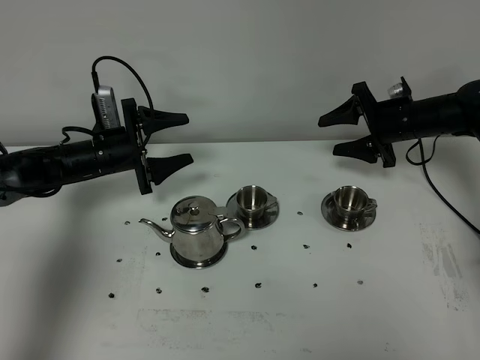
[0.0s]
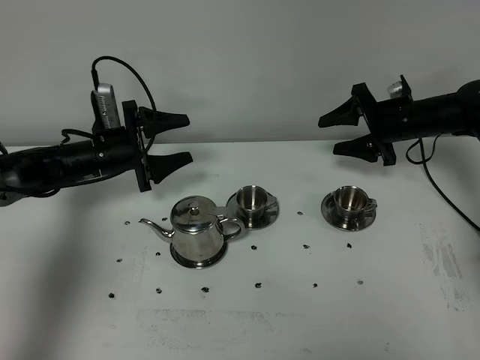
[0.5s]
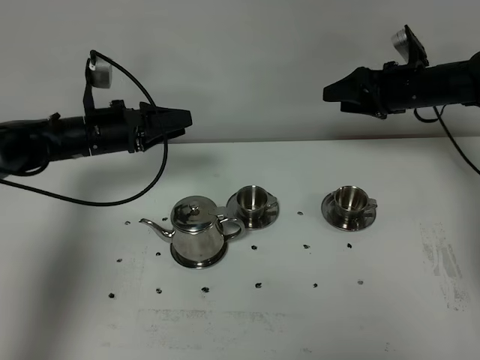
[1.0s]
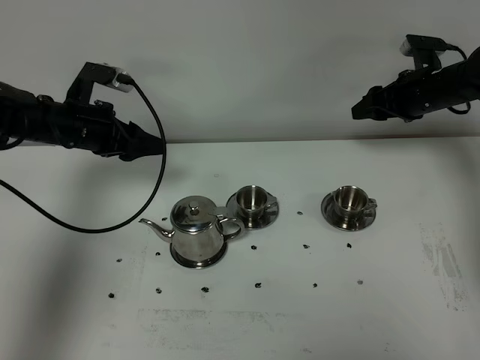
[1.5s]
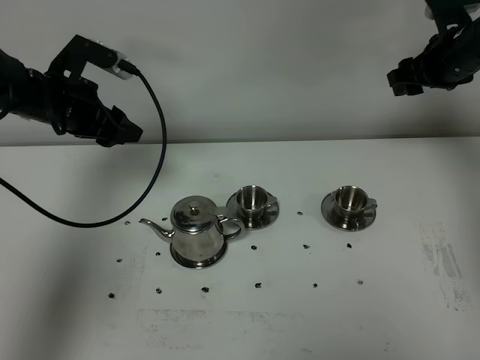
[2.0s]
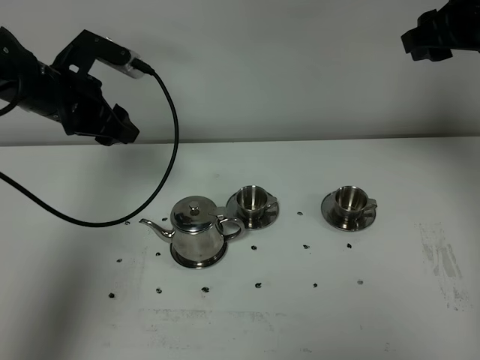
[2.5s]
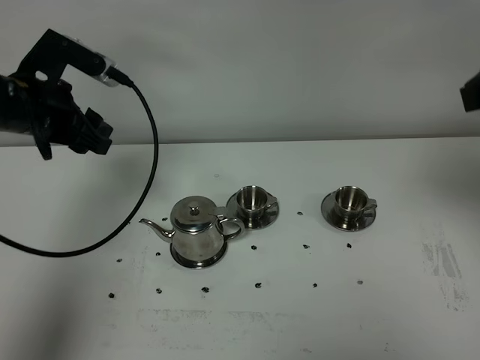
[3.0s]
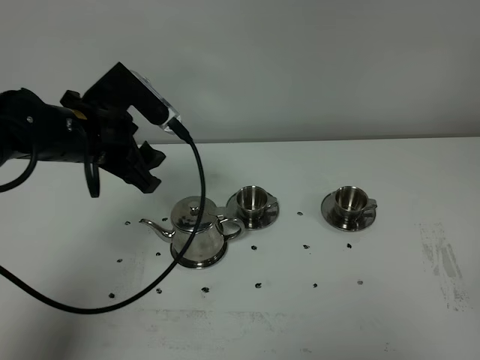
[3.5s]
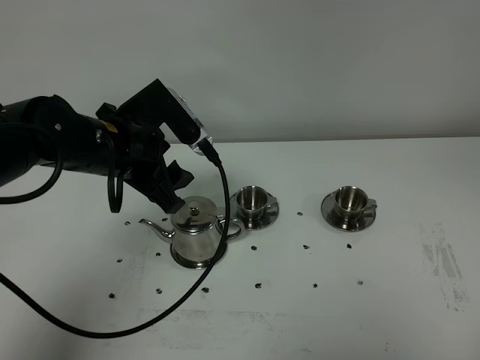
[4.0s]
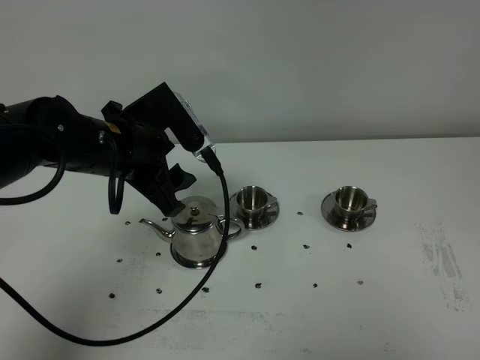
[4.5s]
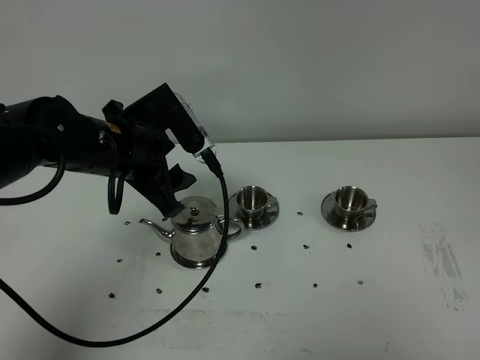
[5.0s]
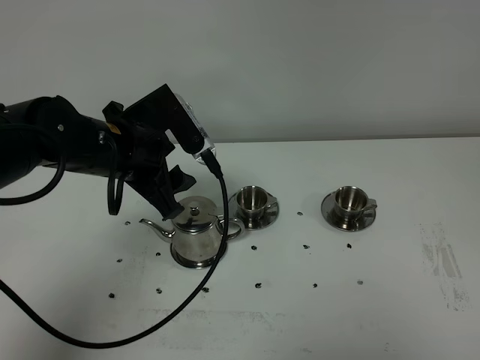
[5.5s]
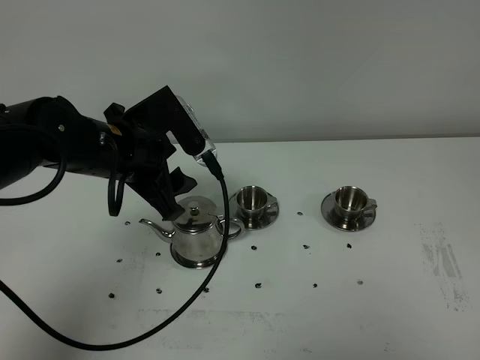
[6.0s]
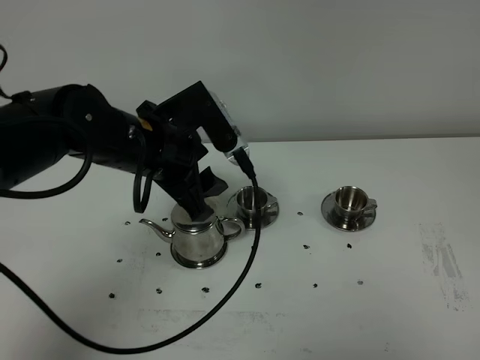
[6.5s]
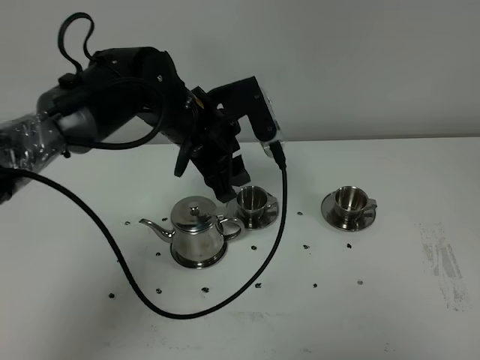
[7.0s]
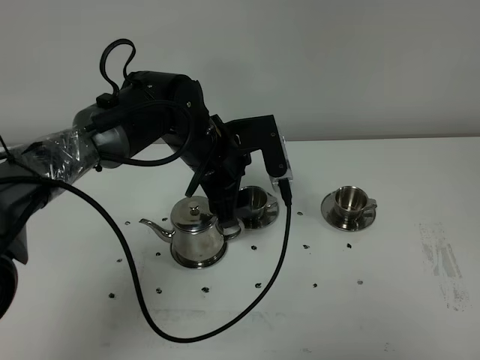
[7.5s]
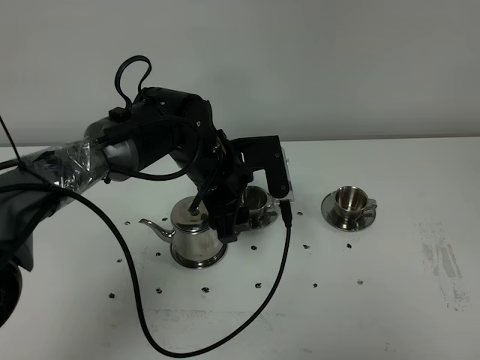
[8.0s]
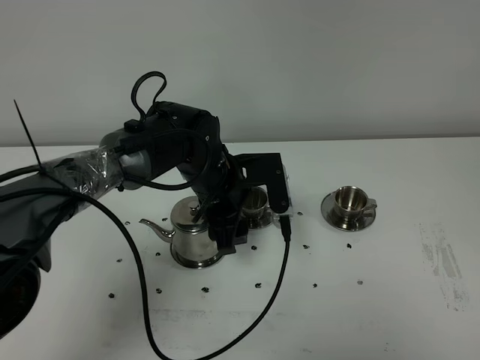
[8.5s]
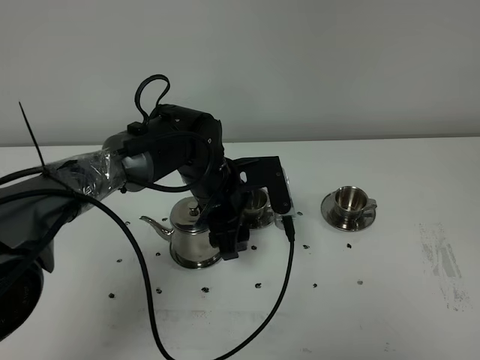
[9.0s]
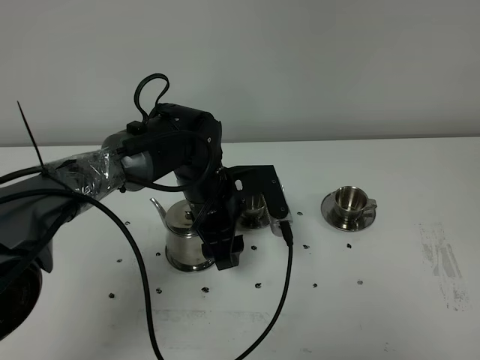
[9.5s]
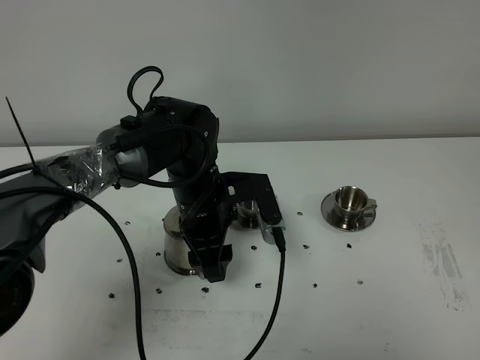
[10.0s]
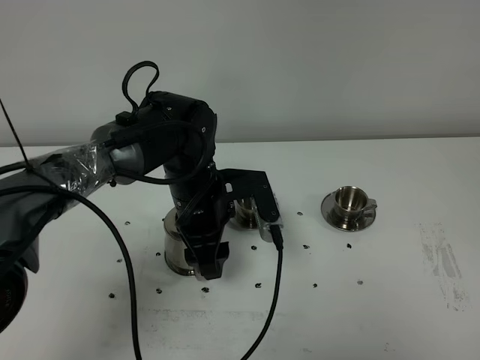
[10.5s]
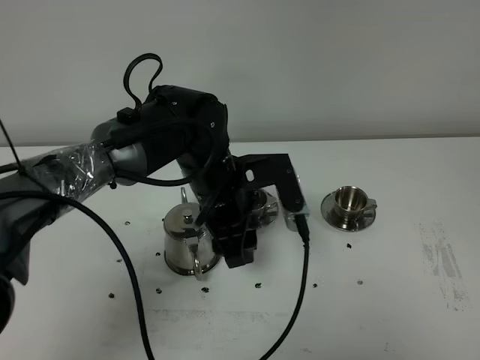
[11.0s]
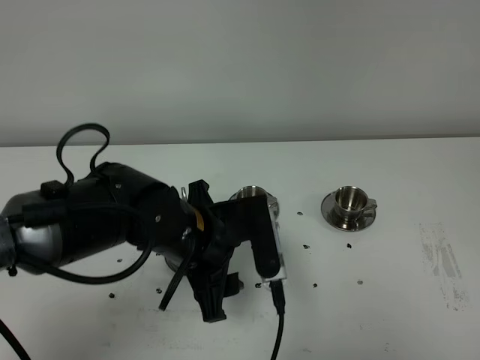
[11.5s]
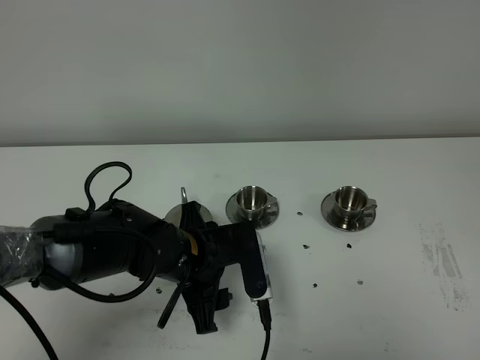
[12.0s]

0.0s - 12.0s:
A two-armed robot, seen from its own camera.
Task of the whole recording: grasp the stainless steel teapot and pour the tea into the two stainless steel teacups one by one, put the stainless steel teapot back in its original place.
0.0s - 2.0s: The two grippers go about 15 cm upward.
2.0s - 4.0s: The right gripper shifts some 50 cm backward, and closes its fingers; the left gripper goes about 15 cm backward and to the right.
4.0s - 6.0s: The right gripper travels downward by about 5 cm.
6.0s - 8.0s: The left gripper goes roughly 10 cm to the right and downward.
10.0s - 12.0s: The left gripper goes some 10 cm backward.

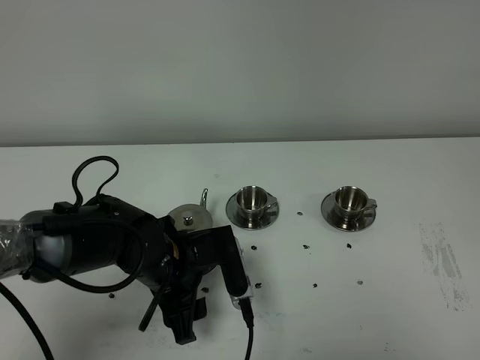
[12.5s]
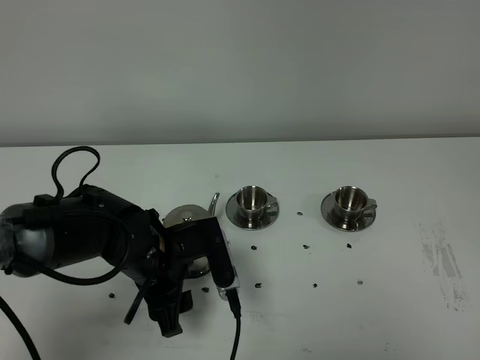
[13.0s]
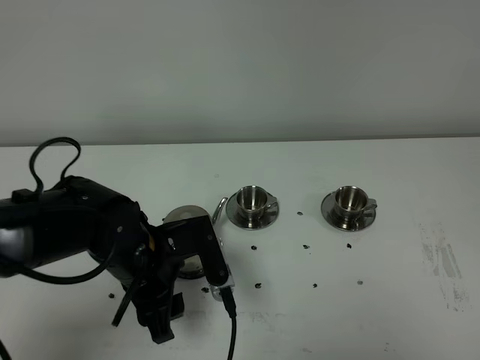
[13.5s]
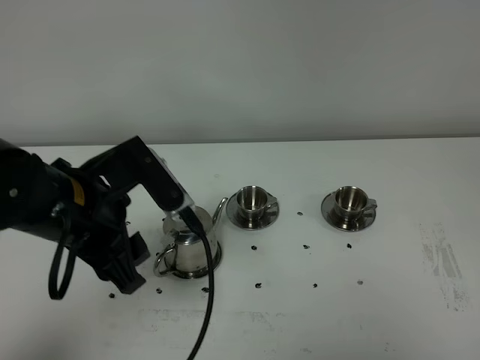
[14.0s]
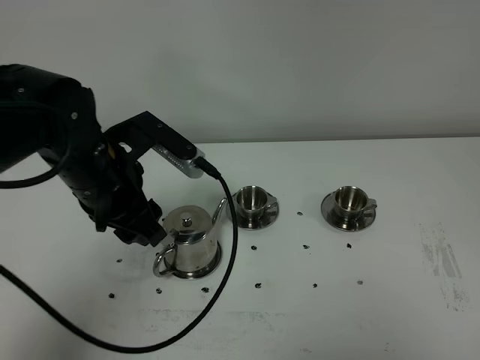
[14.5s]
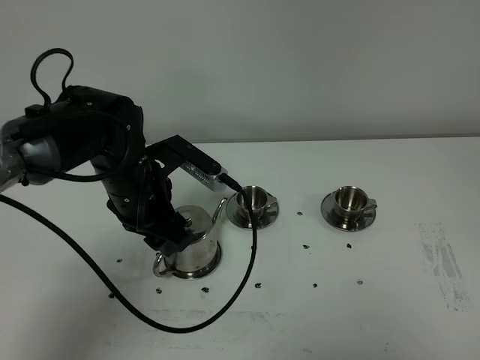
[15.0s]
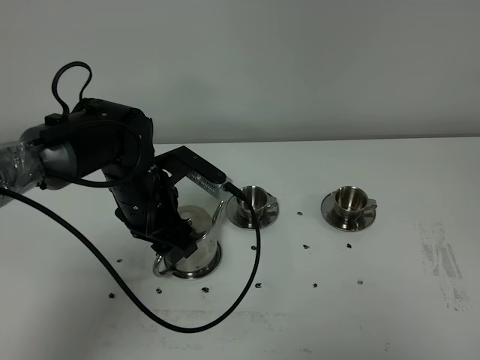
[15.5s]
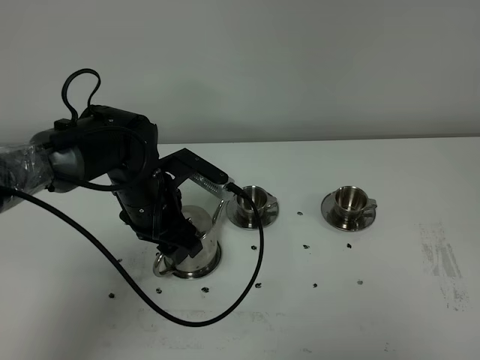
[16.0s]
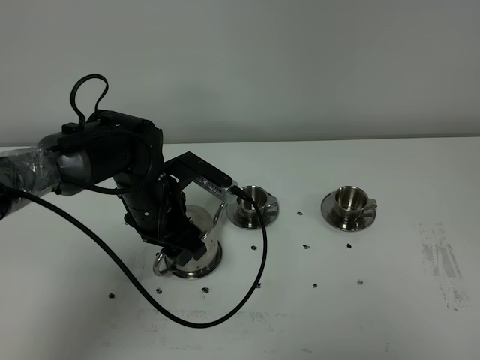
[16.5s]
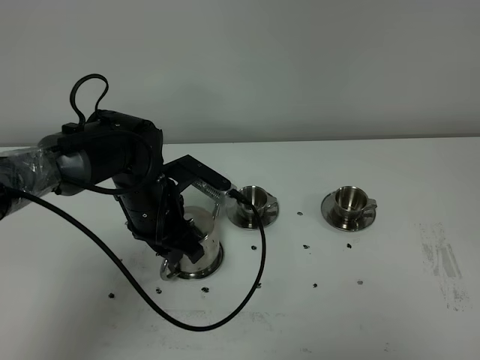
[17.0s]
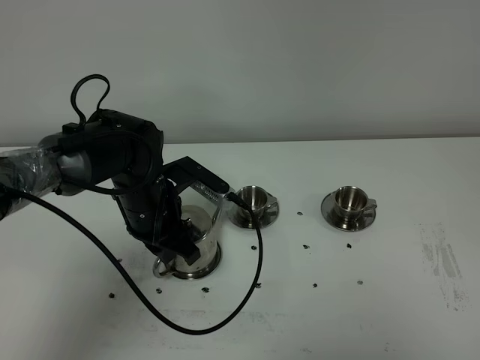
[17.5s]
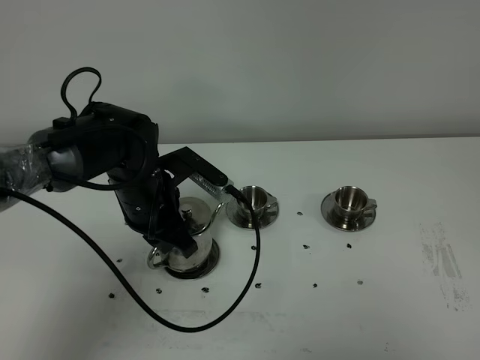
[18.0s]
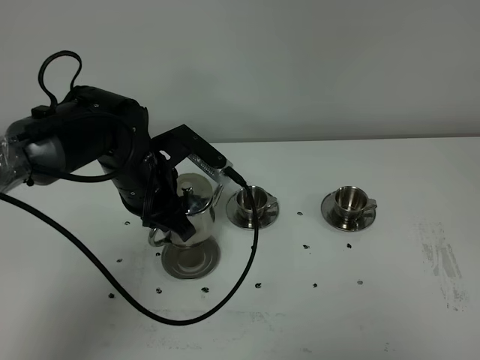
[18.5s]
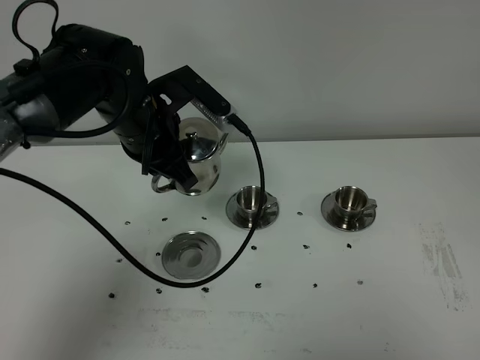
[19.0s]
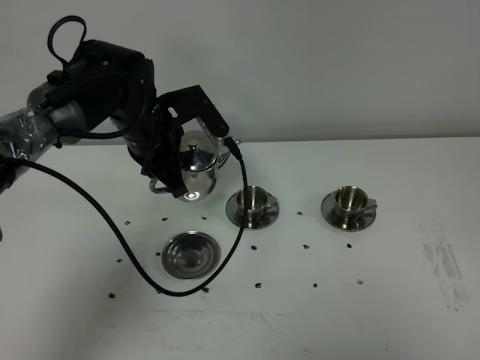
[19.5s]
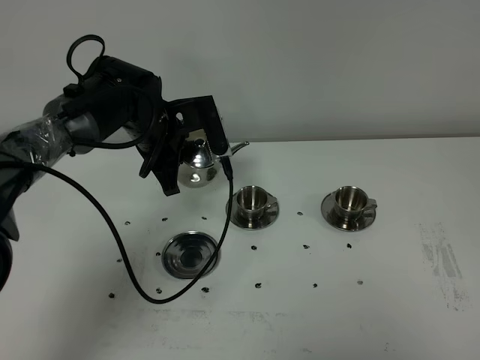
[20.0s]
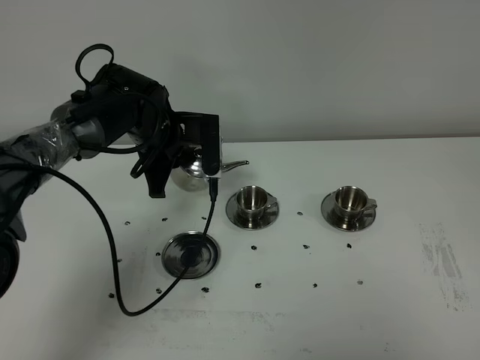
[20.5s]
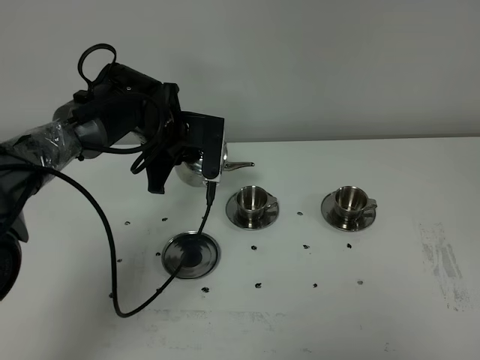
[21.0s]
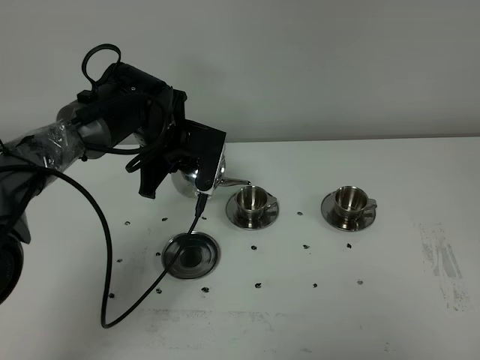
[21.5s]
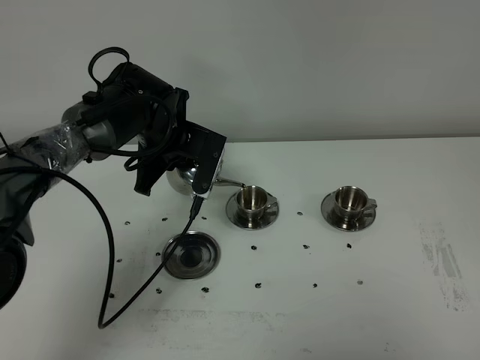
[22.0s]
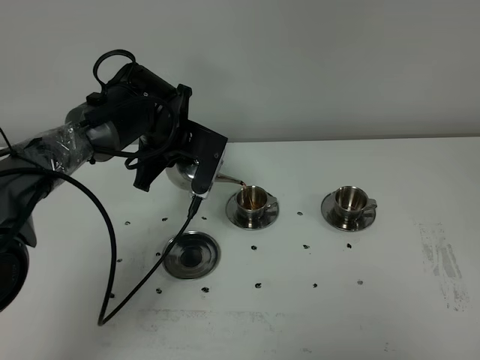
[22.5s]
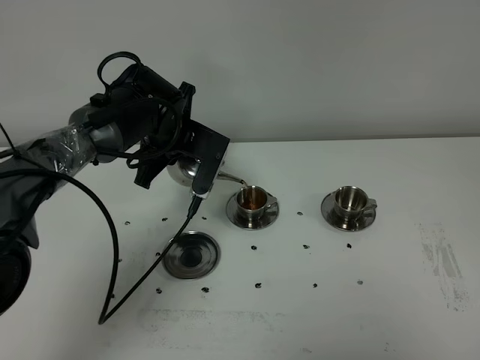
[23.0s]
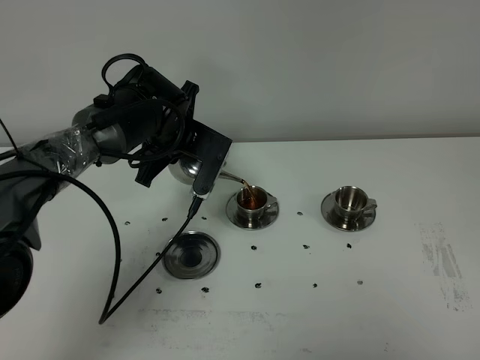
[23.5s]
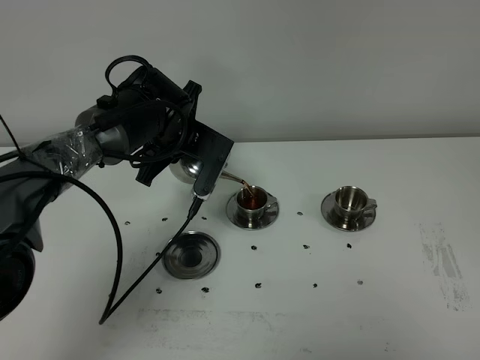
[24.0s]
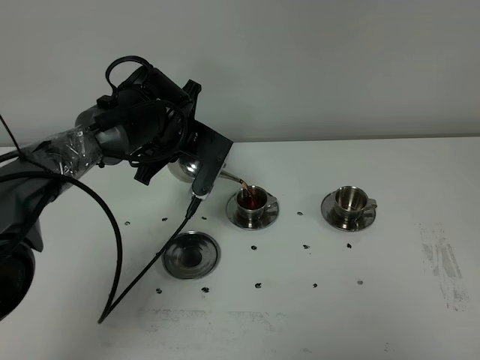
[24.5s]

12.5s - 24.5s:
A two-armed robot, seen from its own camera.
Task of the whole recording: grasp the stainless steel teapot and pour the tea into the two stainless steel teacups one by one, put the stainless steel teapot back in its original place.
Step, 12.5s - 18.0s: Pick up the teapot with the left gripper.
12.5s - 14.5s: The left gripper moves upward, about 10 cm.
14.5s - 16.5s: The left gripper is displaced downward by roughly 10 cm.
16.5s - 18.5s: The left gripper closes.
18.5s - 20.5s: The left gripper is displaced forward by about 10 cm.
22.5s - 24.5s: There are only small adjustments of the grippers.

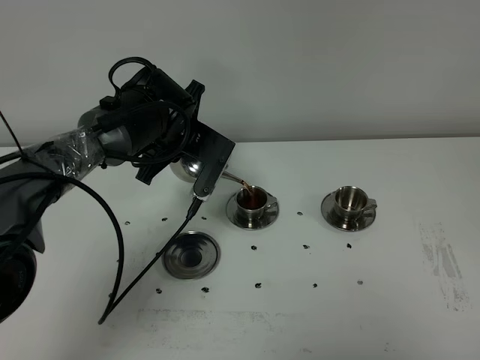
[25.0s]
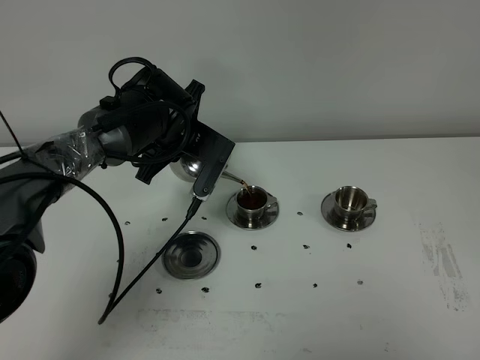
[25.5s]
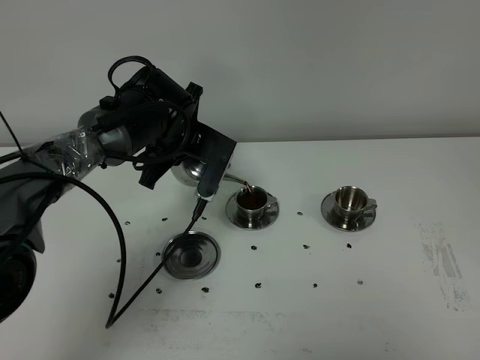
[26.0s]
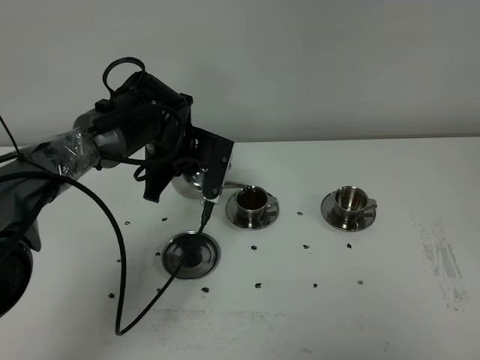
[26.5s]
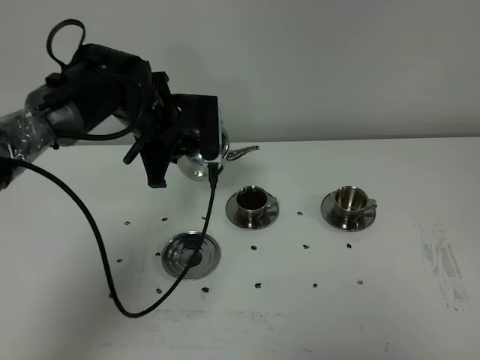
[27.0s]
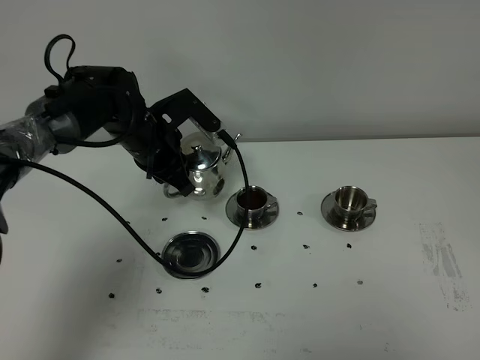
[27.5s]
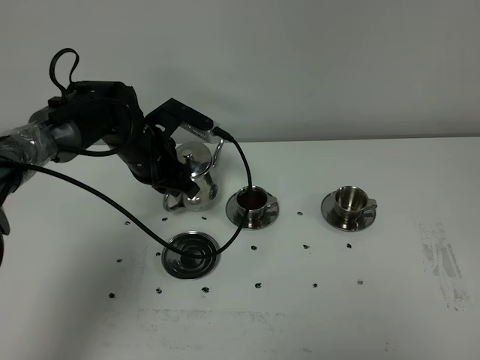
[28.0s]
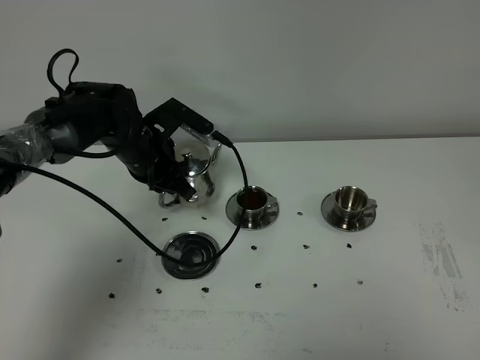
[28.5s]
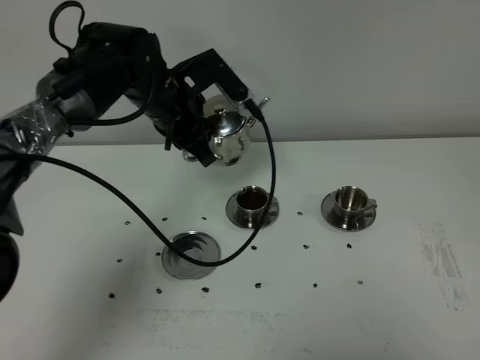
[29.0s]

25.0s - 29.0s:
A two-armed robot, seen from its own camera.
Task of the whole recording: grasp the stainless steel teapot and pour the tea into the two stainless steel teacups one by one, put the stainless steel teapot back in its original place.
27.0s - 29.0s: The left gripper travels downward and back again, about 5 cm each way.
